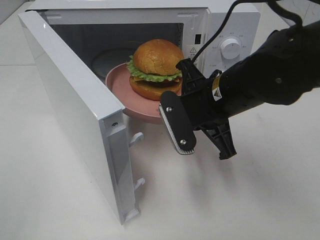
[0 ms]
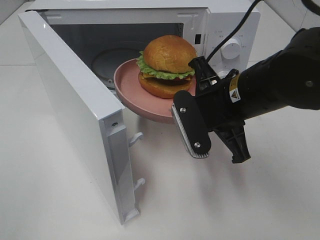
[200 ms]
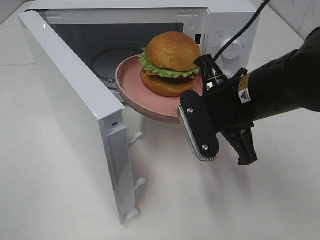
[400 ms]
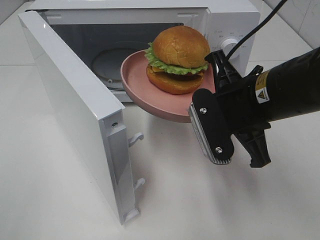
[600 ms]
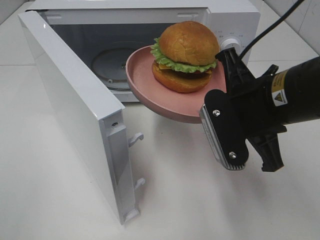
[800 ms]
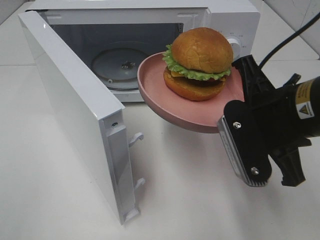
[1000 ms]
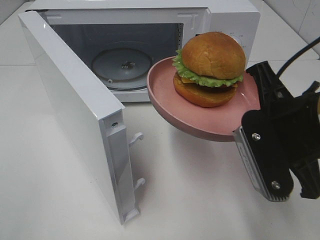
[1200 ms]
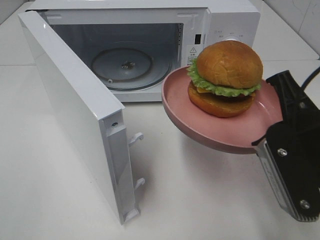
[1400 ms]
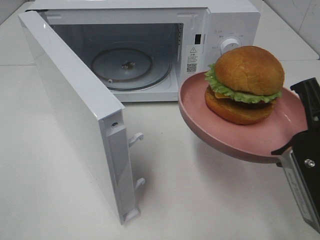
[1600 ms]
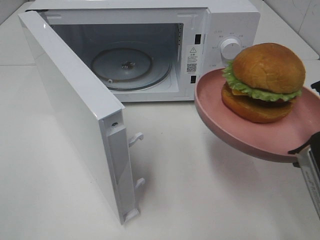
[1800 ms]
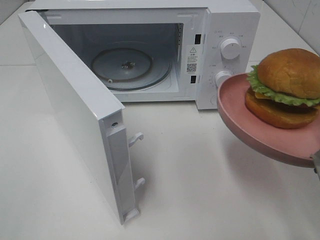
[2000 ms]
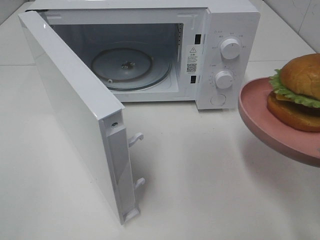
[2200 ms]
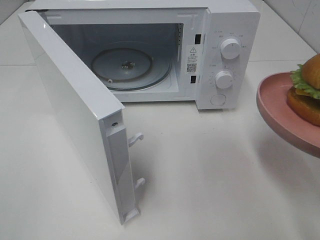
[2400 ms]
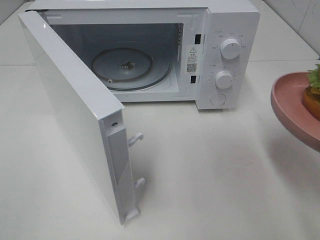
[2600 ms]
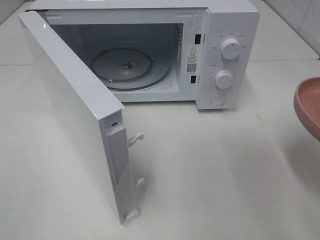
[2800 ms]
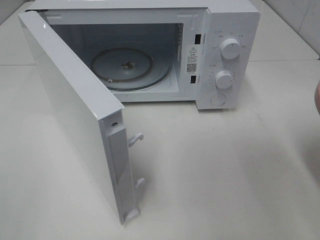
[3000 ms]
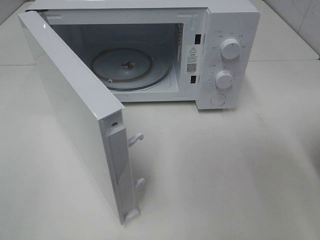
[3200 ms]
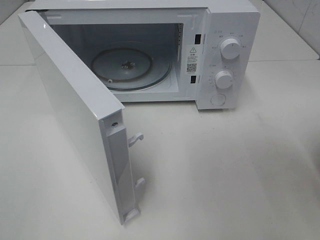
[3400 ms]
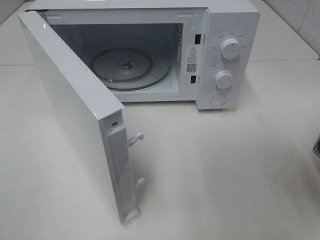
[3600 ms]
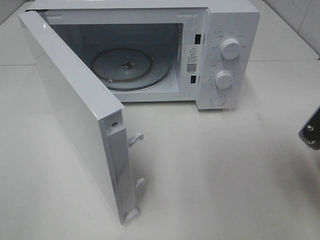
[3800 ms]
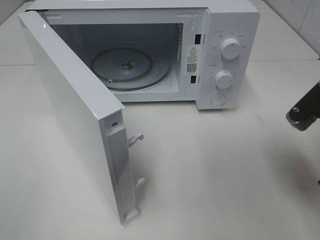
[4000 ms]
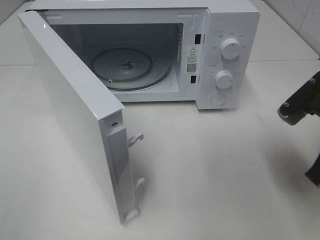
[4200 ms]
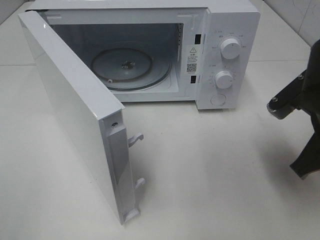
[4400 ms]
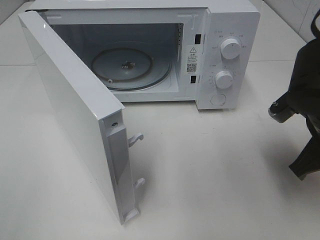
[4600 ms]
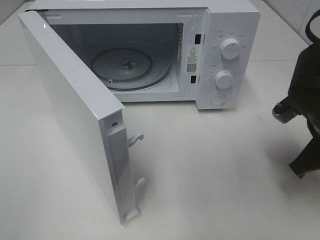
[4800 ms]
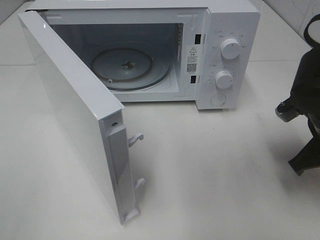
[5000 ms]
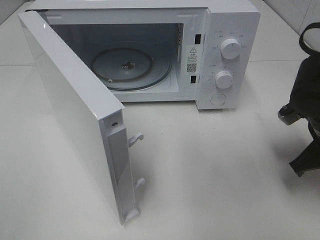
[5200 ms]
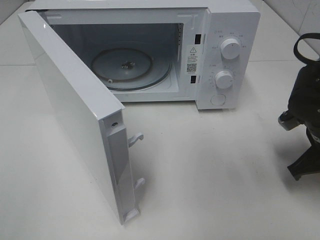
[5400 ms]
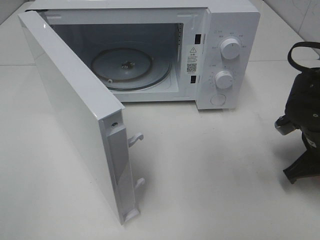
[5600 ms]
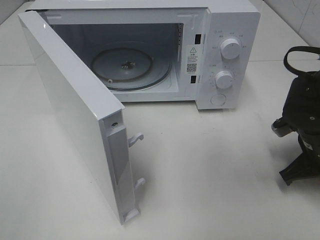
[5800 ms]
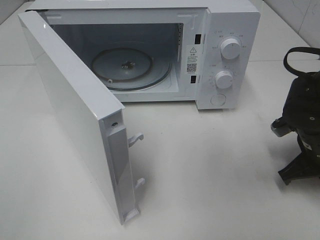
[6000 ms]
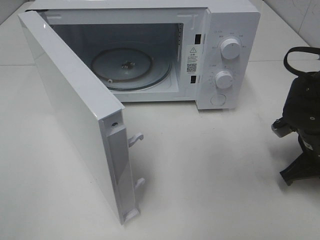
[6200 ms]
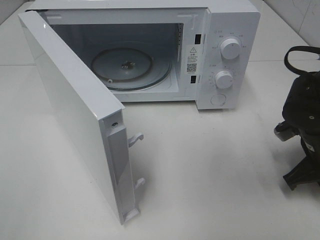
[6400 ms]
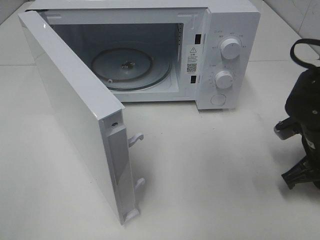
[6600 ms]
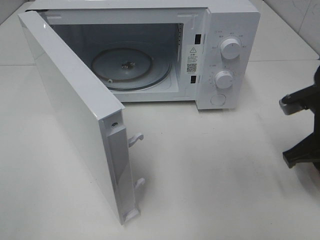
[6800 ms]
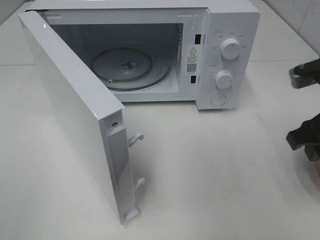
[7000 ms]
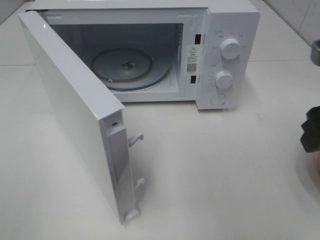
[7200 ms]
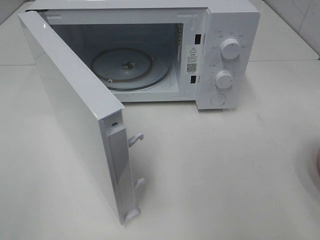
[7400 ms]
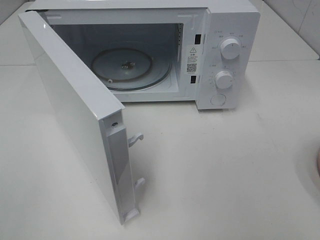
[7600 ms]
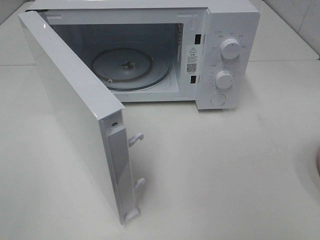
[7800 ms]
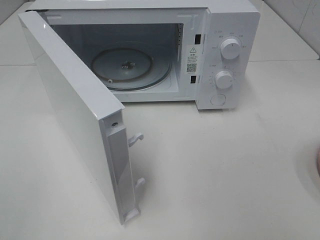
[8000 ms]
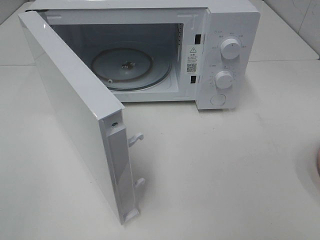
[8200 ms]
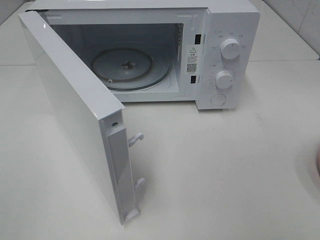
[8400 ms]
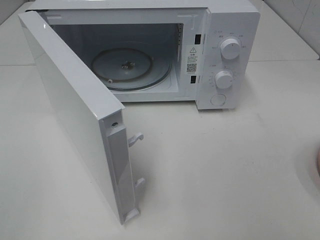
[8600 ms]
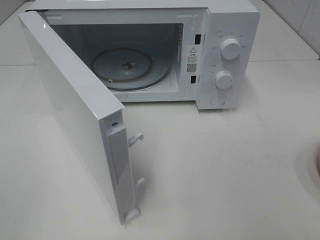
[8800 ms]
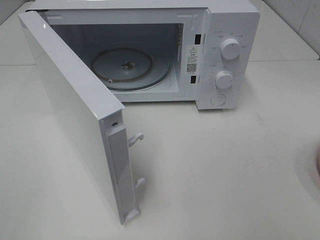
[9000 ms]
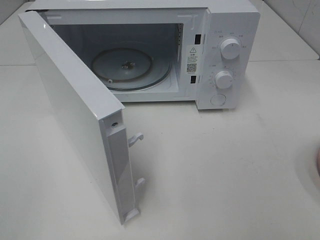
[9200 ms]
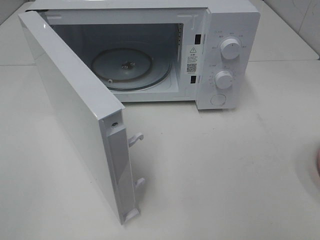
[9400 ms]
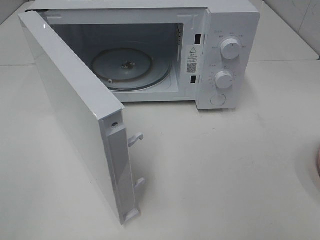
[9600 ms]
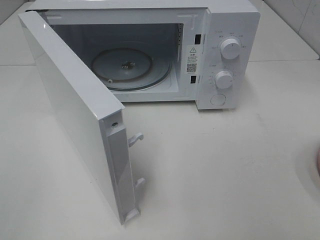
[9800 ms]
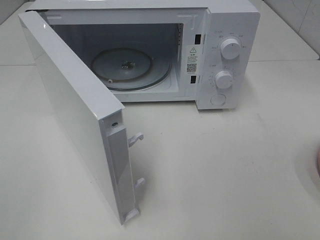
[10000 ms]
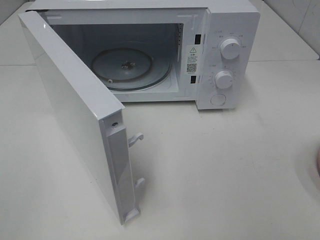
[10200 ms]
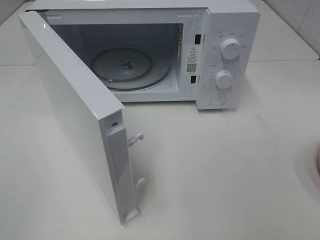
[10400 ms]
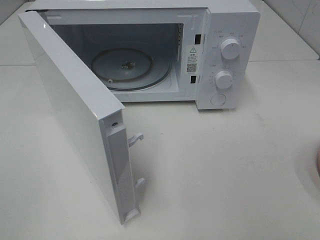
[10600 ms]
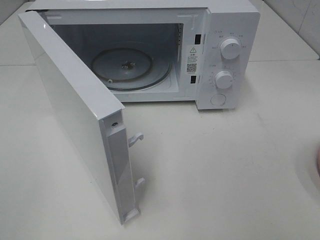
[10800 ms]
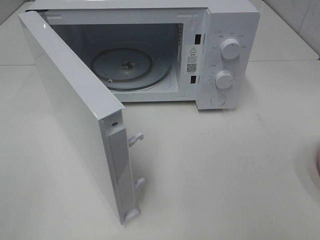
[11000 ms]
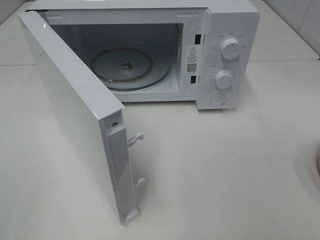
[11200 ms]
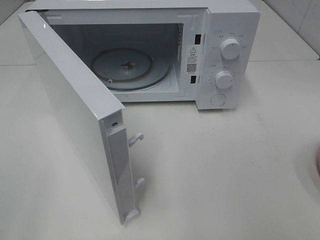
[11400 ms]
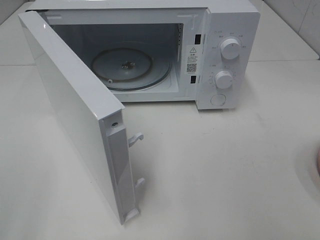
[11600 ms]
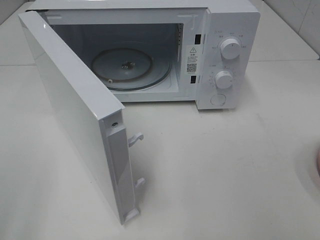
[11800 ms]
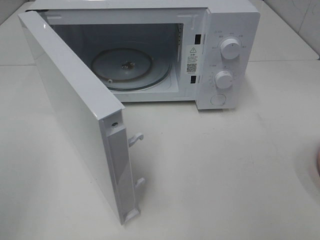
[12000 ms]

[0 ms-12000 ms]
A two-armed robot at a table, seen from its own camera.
Task of the whole recording: Heat the burger.
Step, 0 ms to 6200 ms: Right hand: place the plate on the table.
0 ms to 1600 ms: The right gripper travels backward and to the right by about 15 cm.
1600 ms to 3000 ms: The right gripper shifts roughly 5 cm to the right.
3000 ms to 4400 ms: The right gripper heads forward and to the left, covering about 10 cm.
4400 ms to 6000 ms: The right gripper goes some 10 cm downward.
6000 ms to 7600 ms: The right gripper goes approximately 25 cm upward and backward, and opens.
9000 ms to 10400 ms: The two grippers keep their place.

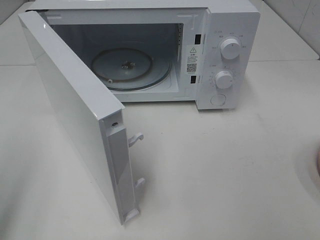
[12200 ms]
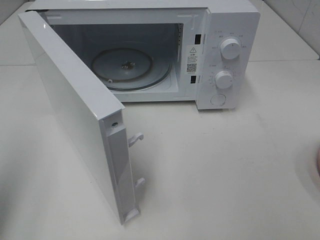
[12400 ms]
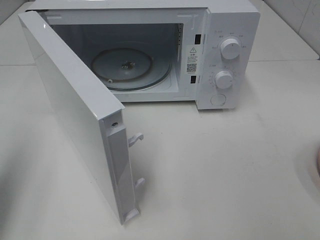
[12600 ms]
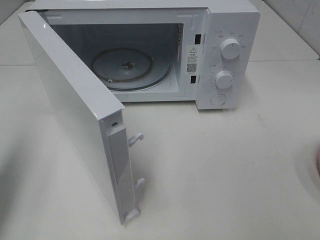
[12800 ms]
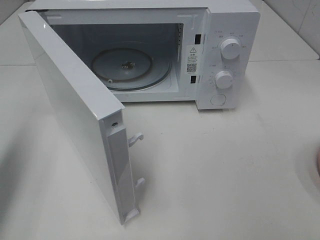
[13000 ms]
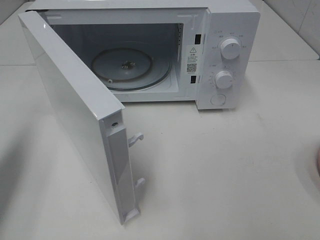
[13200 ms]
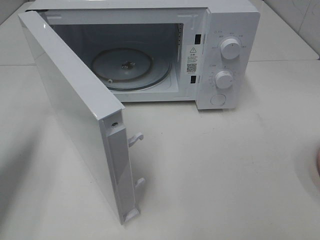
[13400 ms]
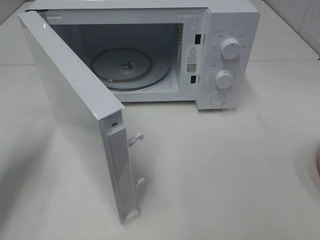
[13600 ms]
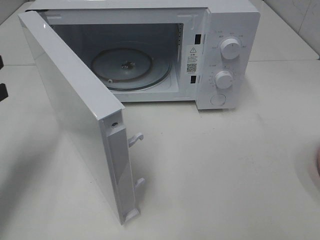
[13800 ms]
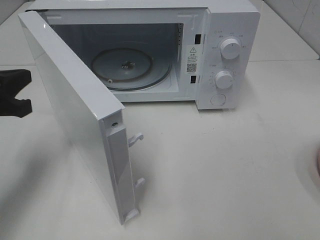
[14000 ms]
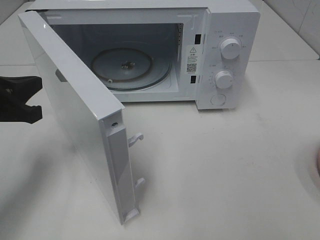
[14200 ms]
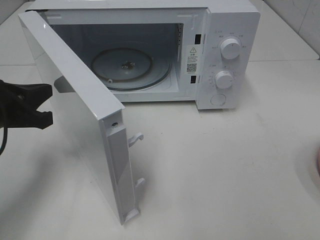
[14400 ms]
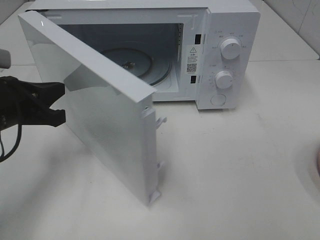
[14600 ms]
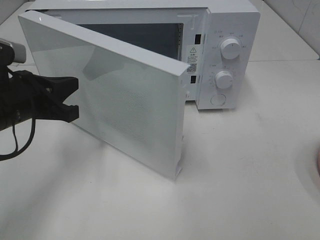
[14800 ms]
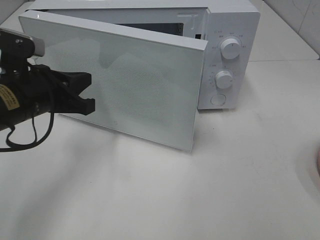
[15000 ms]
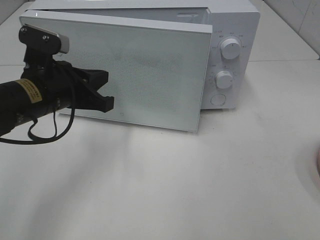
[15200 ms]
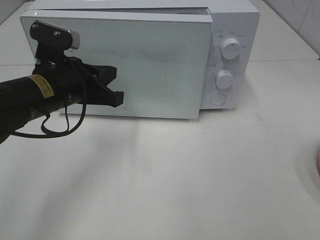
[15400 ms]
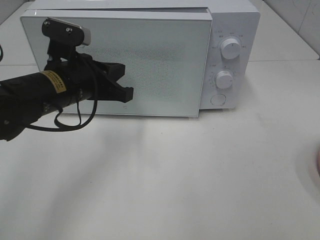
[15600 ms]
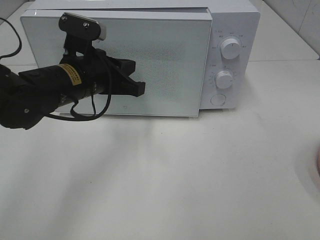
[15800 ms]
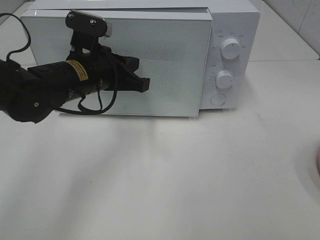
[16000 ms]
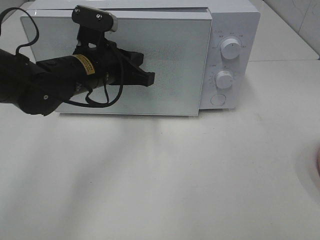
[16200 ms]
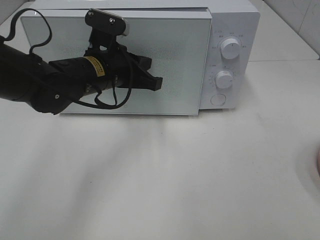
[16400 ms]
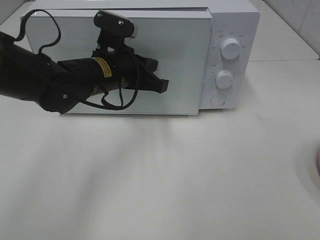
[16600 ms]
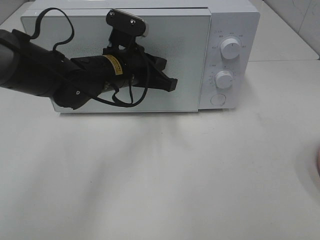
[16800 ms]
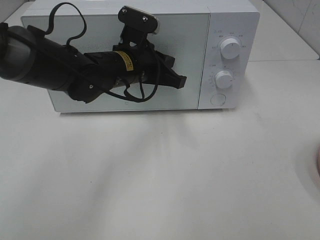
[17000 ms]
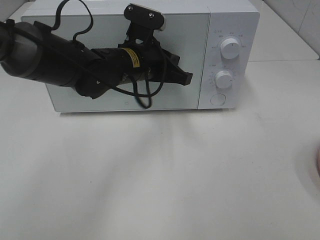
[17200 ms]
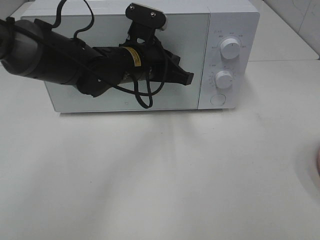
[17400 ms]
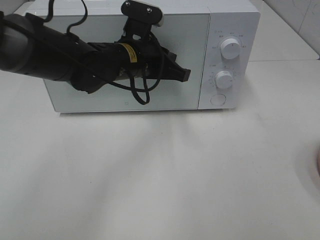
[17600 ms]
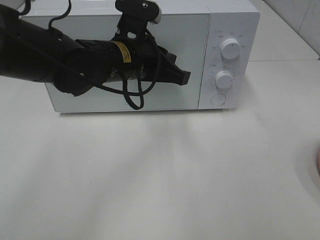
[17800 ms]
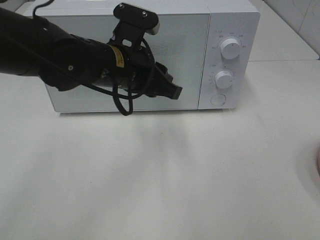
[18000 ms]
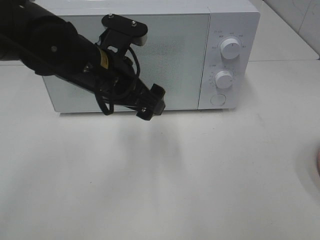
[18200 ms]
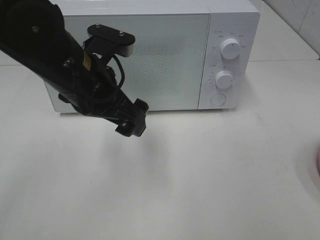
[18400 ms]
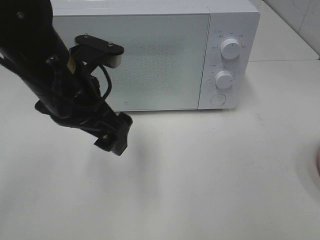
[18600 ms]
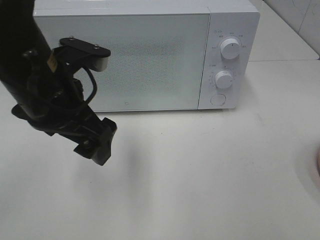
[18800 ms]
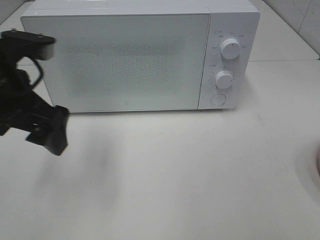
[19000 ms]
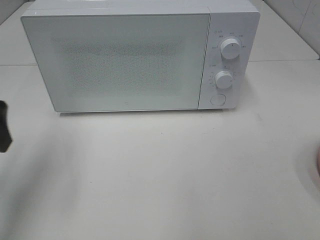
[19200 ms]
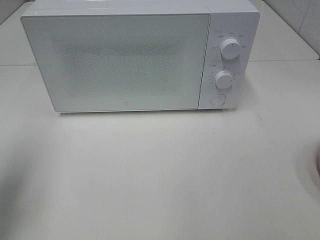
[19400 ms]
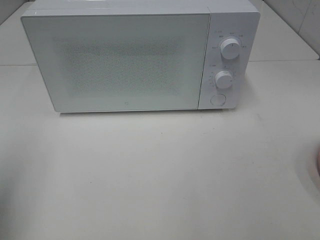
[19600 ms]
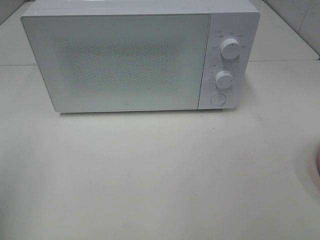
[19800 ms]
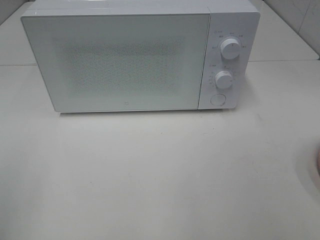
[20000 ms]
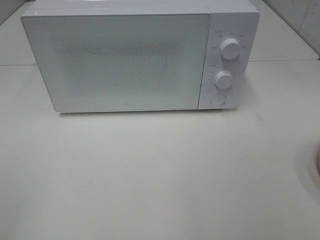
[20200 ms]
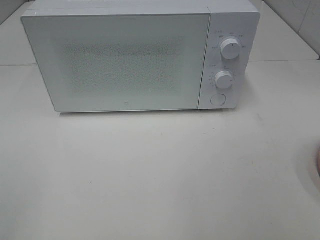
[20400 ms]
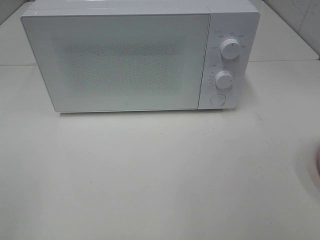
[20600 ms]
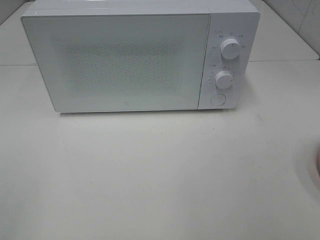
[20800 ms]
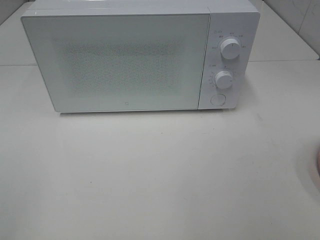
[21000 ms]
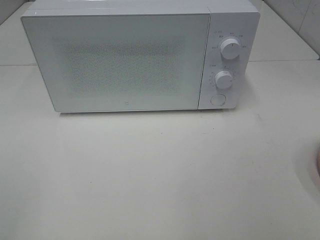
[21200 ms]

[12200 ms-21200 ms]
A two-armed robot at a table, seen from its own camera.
Task of the whole recording: Heat the burger.
Step, 12200 ms to 17600 ms: Left hand: close the microwave door.
12200 ms to 13800 ms: The left gripper heads forward and downward, covering about 20 cm, and closes up.
13800 ms to 15200 ms: The left gripper goes about 15 cm to the right.
15200 ms to 16600 ms: The left gripper goes some 10 cm to the right and forward.
16600 ms to 18200 ms: The left gripper is displaced backward by about 5 cm, and opens its fingers.
18200 ms to 19800 ms: The left gripper moves to the left and backward, roughly 30 cm.

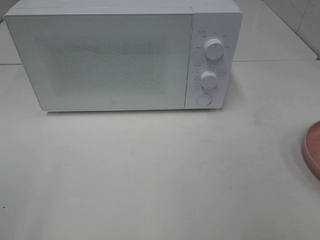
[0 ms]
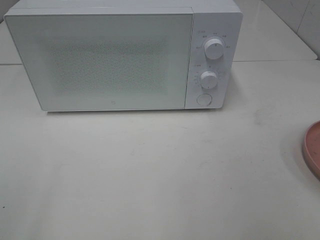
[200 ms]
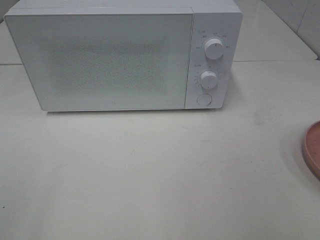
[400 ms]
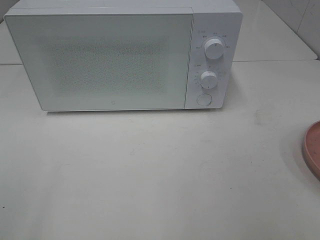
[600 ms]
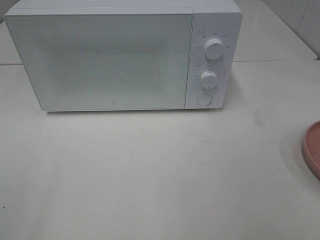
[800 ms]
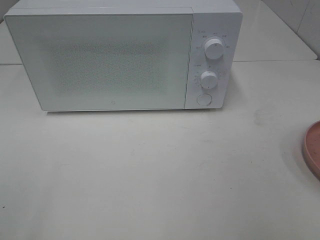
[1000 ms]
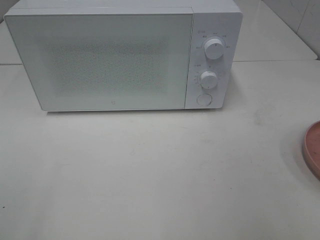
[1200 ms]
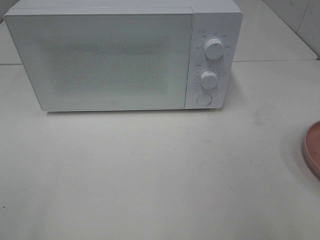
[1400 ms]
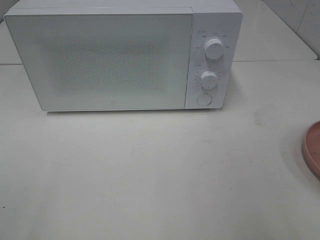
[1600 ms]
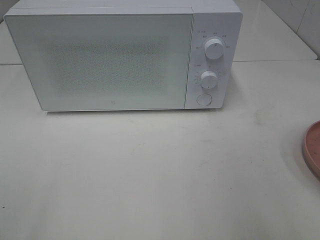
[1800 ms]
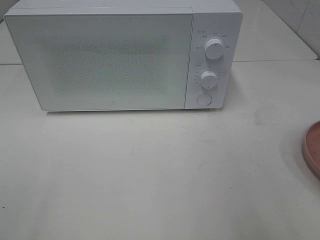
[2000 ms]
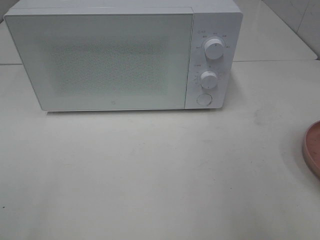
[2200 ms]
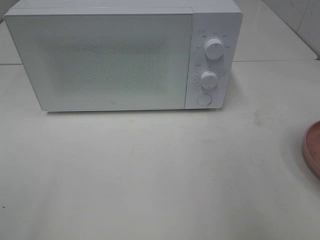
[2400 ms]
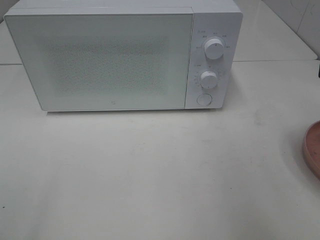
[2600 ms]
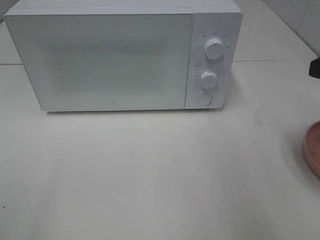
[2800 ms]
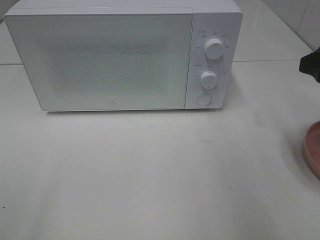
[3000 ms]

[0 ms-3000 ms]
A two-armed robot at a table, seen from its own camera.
Task of the whole recording: Heat the burger.
1600 ms to 3000 ms: The right gripper moves forward, roughly 15 cm.
